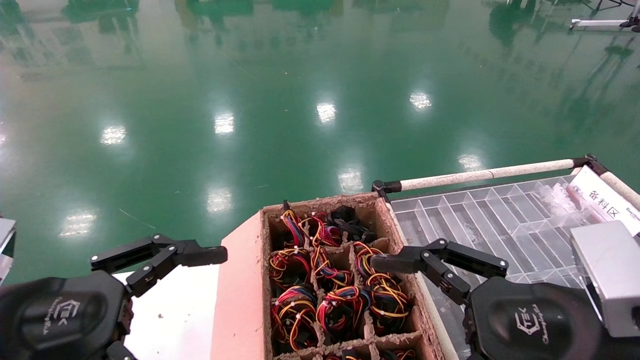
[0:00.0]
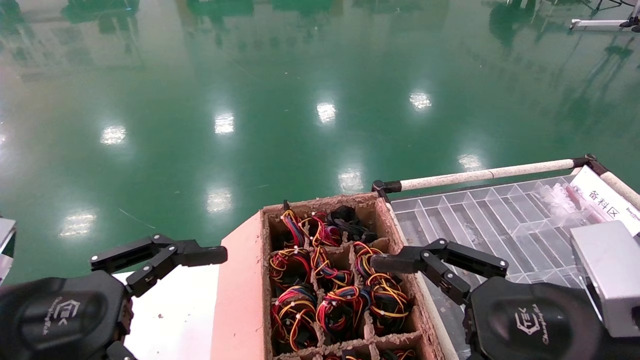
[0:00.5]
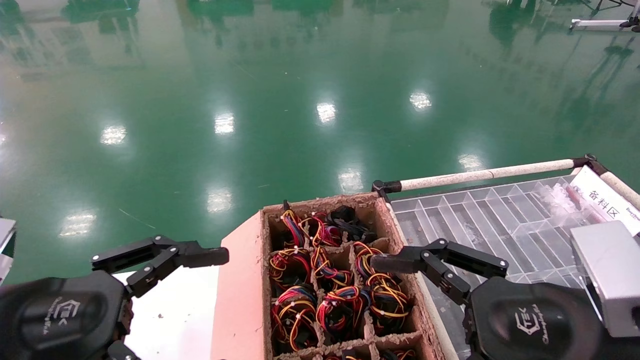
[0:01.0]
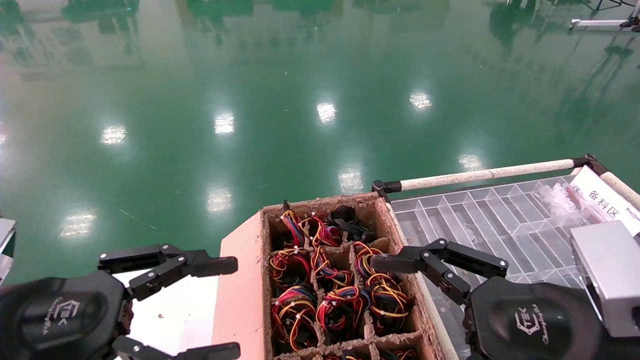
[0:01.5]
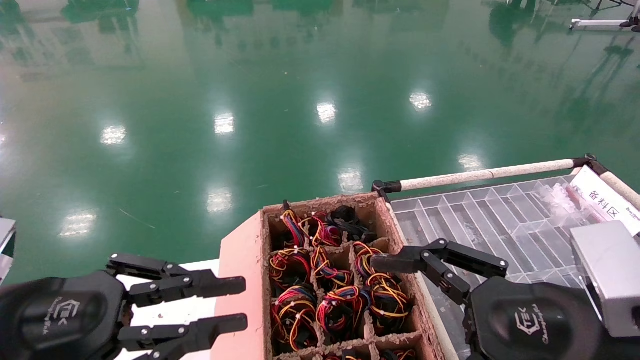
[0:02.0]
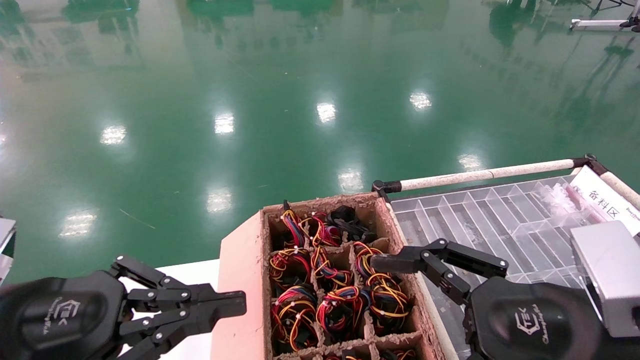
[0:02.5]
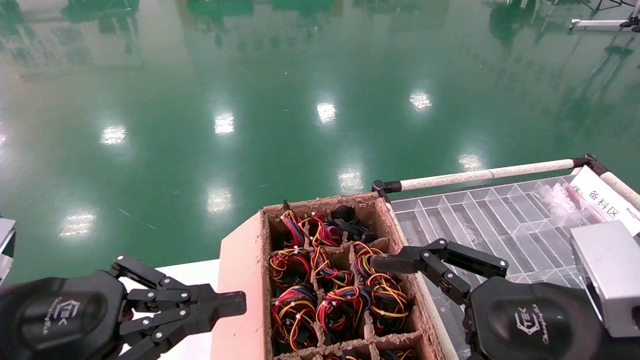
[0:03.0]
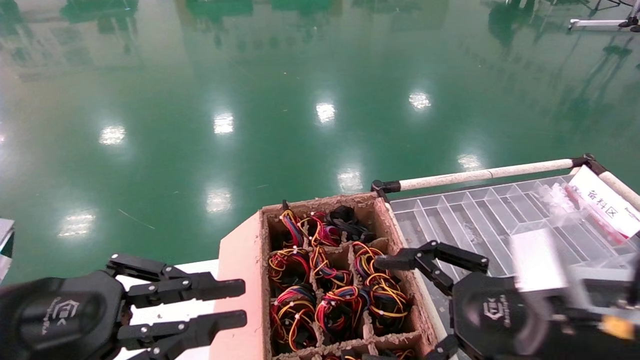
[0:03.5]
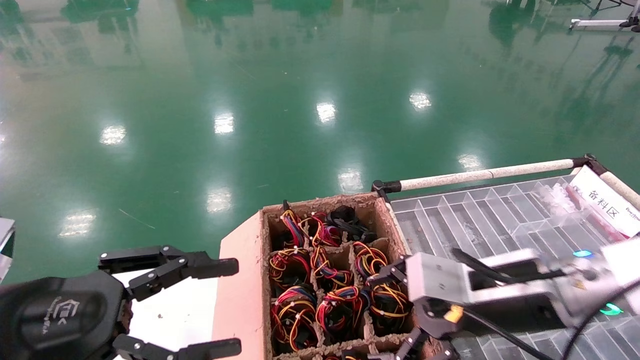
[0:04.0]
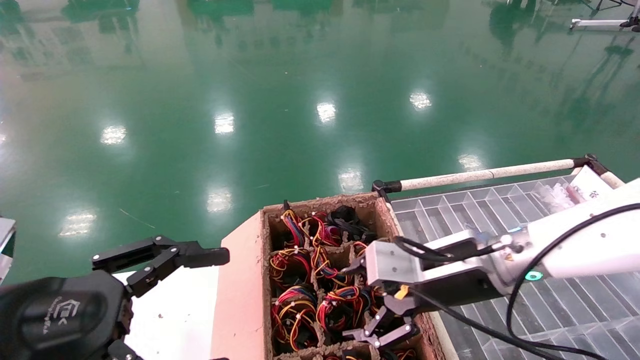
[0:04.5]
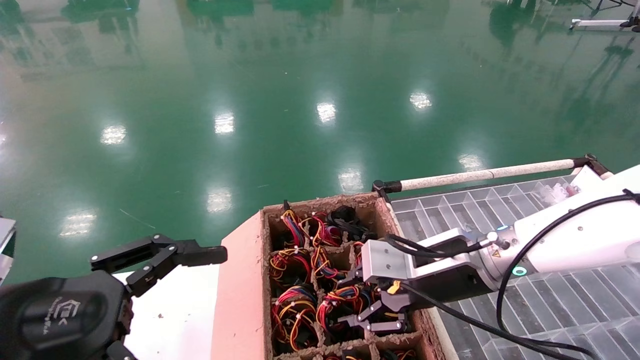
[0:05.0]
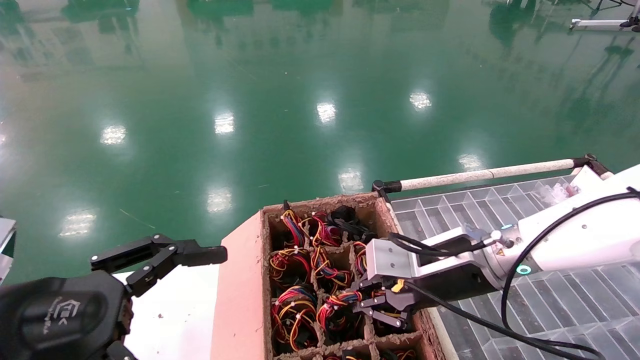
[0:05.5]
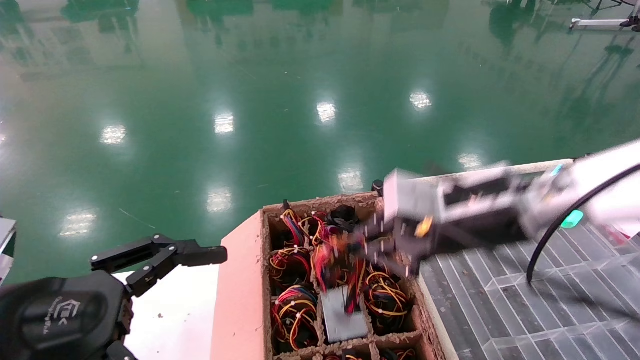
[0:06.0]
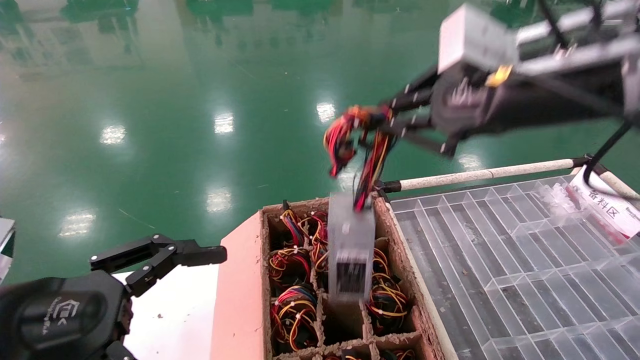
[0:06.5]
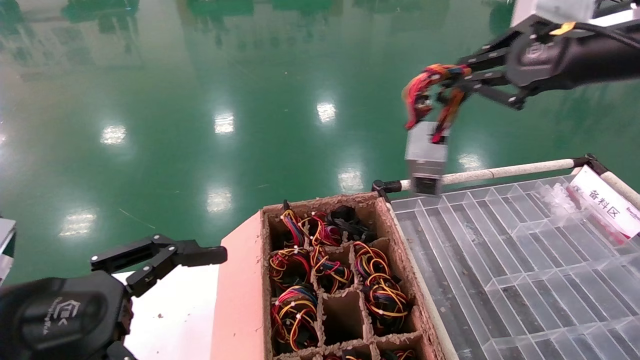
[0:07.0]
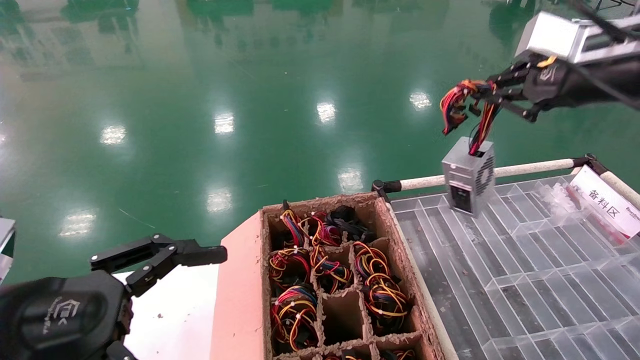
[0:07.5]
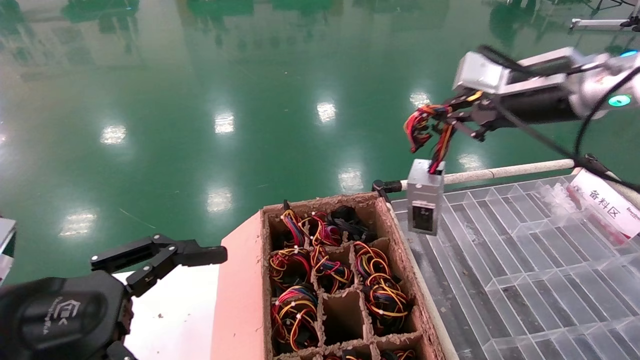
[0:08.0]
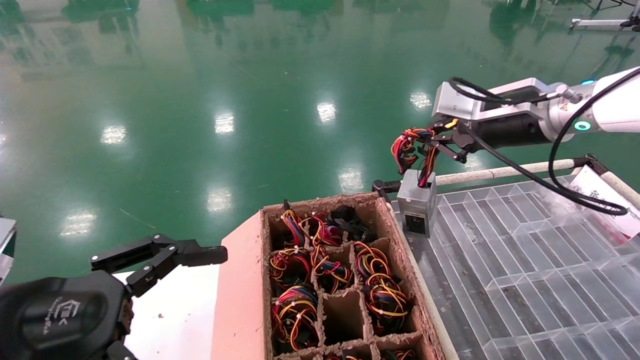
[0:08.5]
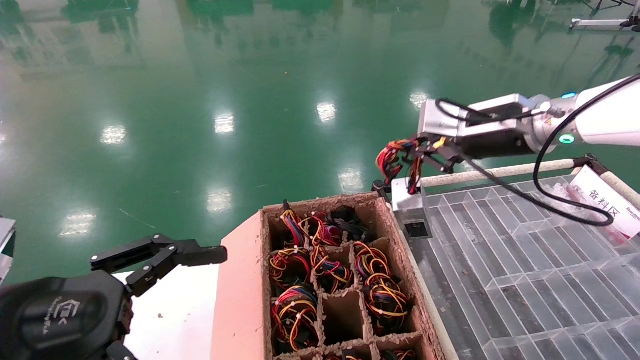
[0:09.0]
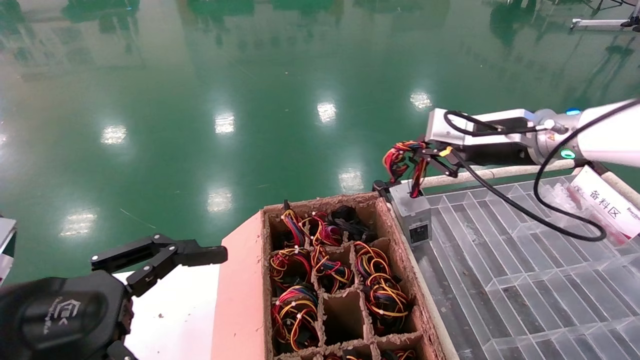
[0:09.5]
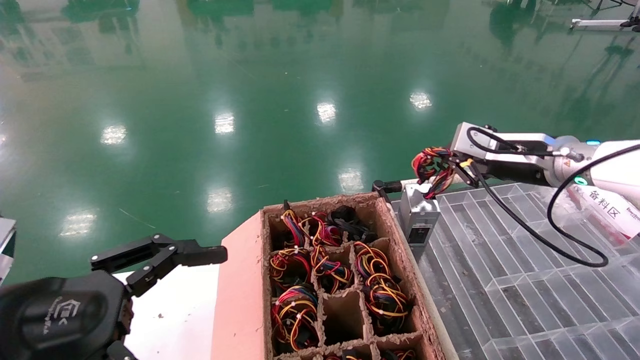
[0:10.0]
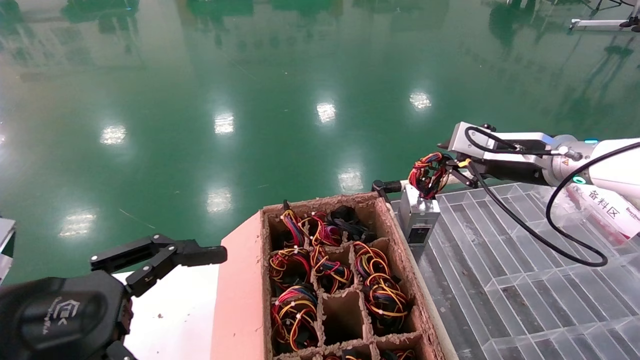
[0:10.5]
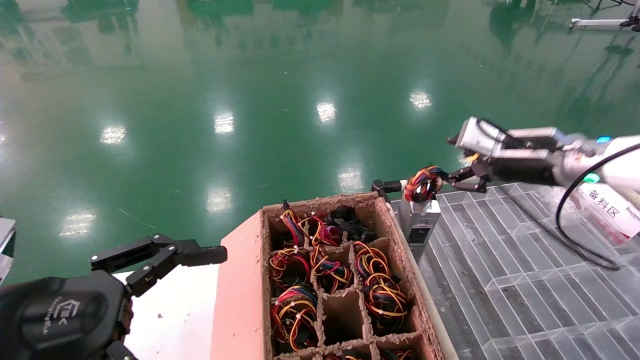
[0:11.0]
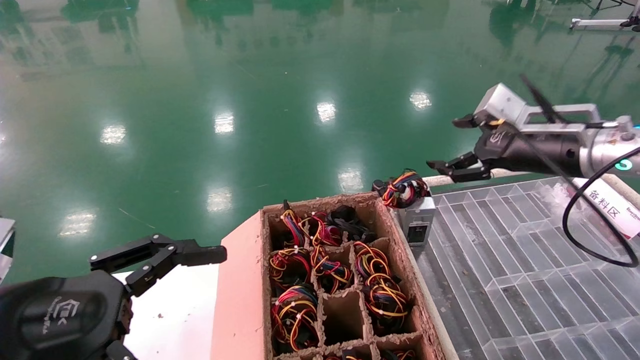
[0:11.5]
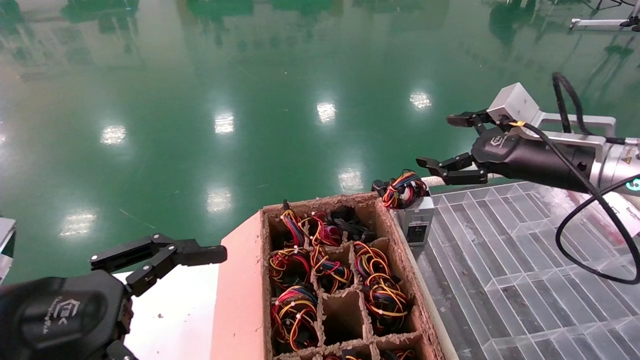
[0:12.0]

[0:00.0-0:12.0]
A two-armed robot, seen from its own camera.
Step, 0:02.5 to 0:05.5: Grab and lift the power supply from the large box.
Step, 0:06.0 to 0:10.5: Place the power supply on the operating table.
0:00.0 to 0:02.0: The left gripper closes.
0:02.0 to 0:04.0: The right gripper is displaced forward by approximately 10 cm.
0:04.0 to 0:06.0: The right gripper goes roughly 10 cm upward, and closes up. The left gripper opens up.
0:06.0 to 0:08.0: The right gripper shifts roughly 15 cm upward, to the right and forward.
0:08.0 to 0:10.0: The right gripper shifts approximately 10 cm downward and forward.
0:10.0 to 0:12.0: The right gripper heads backward, covering approximately 5 cm, and opens up.

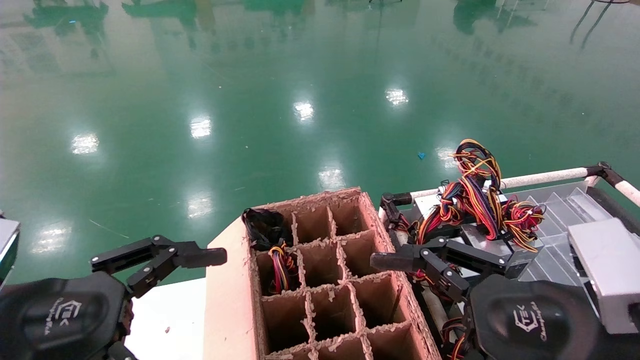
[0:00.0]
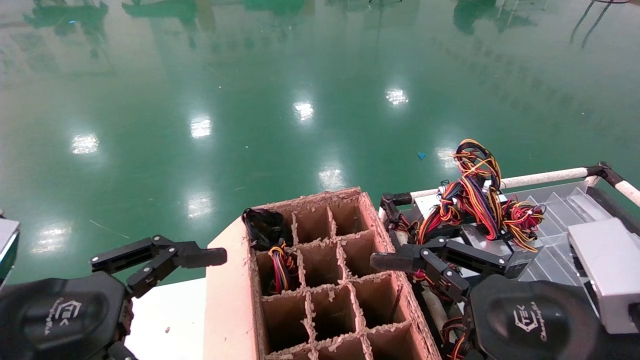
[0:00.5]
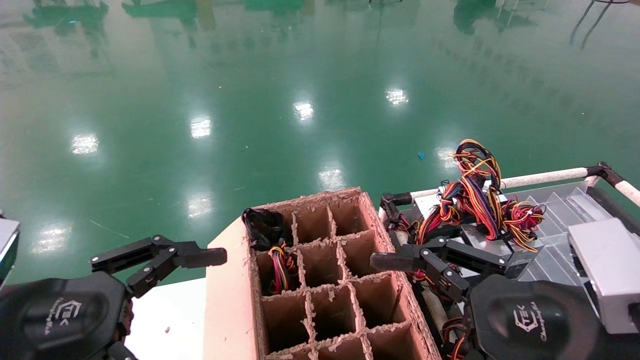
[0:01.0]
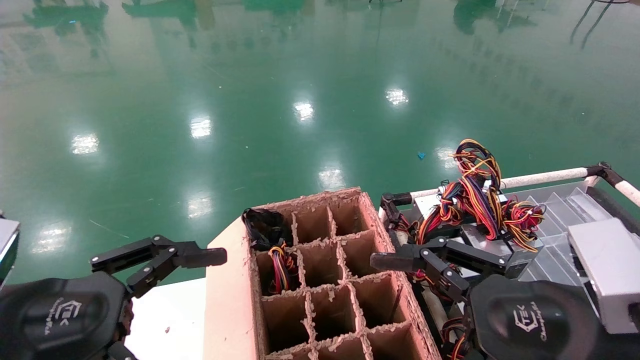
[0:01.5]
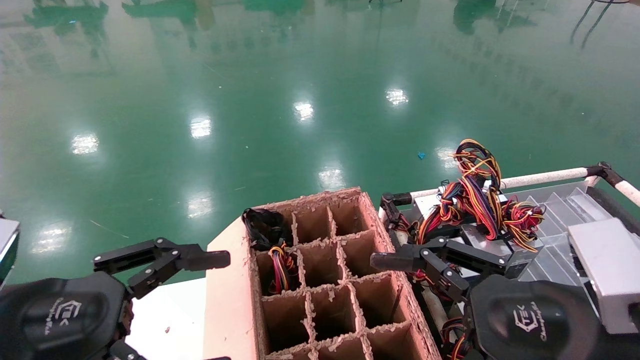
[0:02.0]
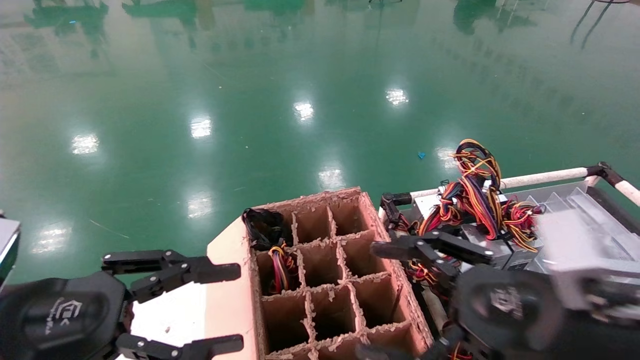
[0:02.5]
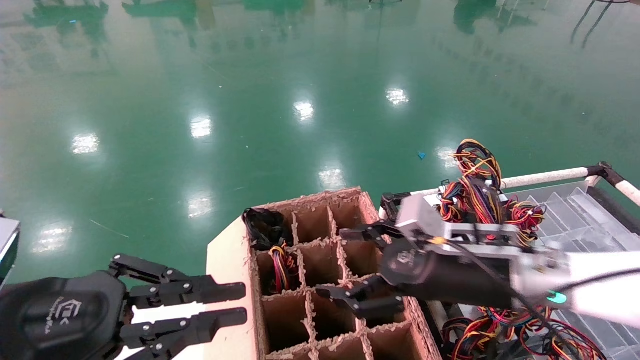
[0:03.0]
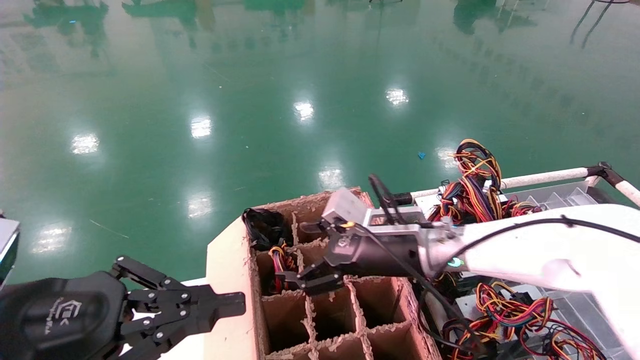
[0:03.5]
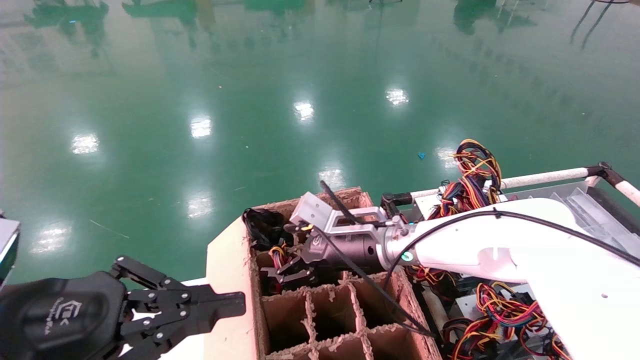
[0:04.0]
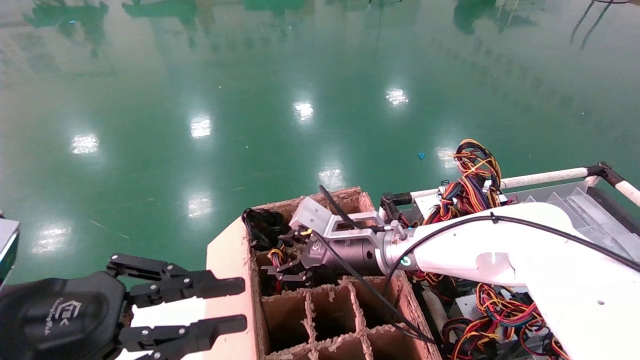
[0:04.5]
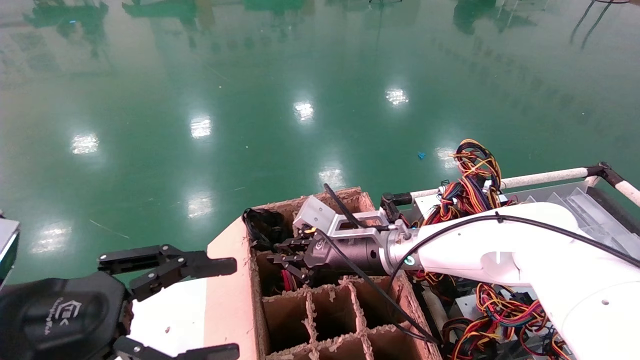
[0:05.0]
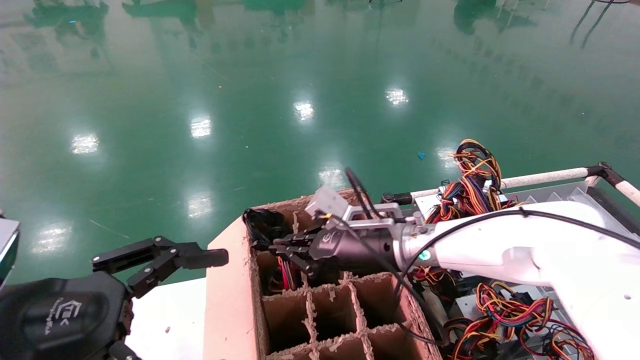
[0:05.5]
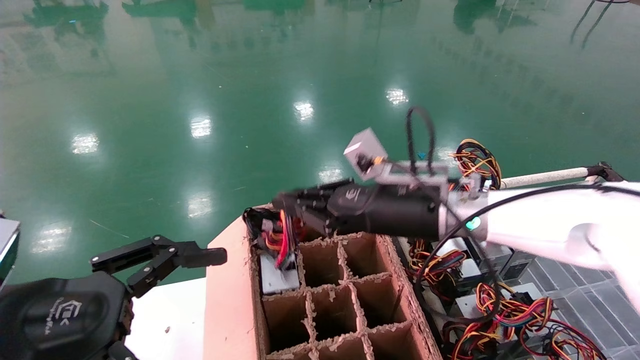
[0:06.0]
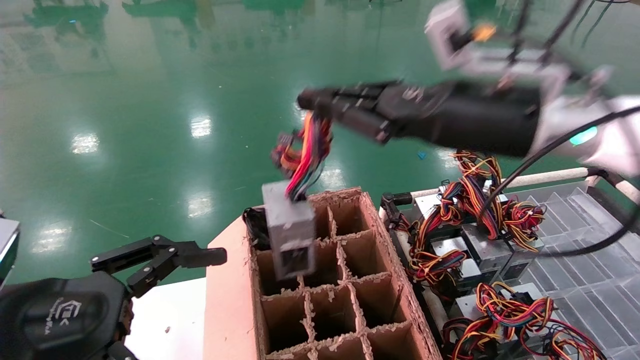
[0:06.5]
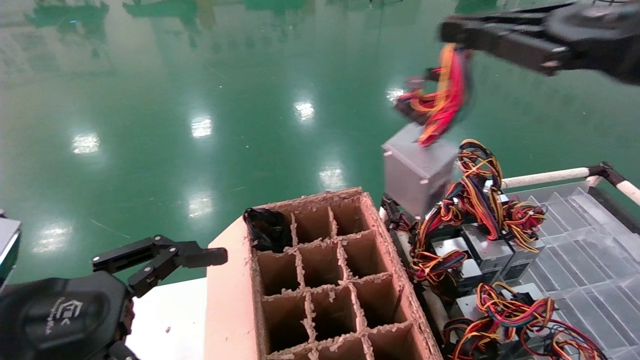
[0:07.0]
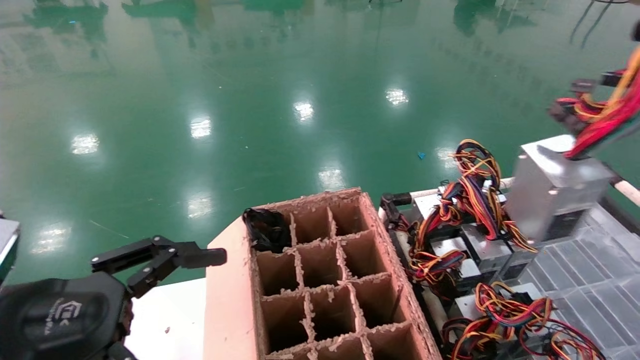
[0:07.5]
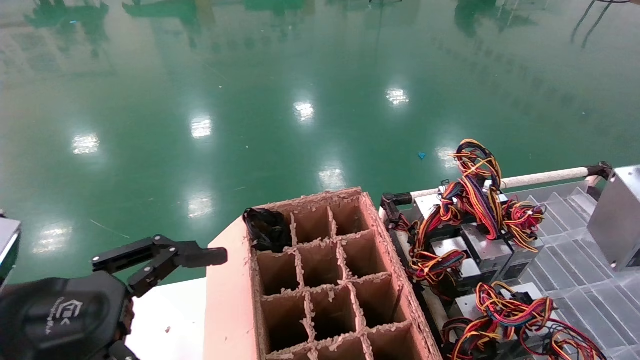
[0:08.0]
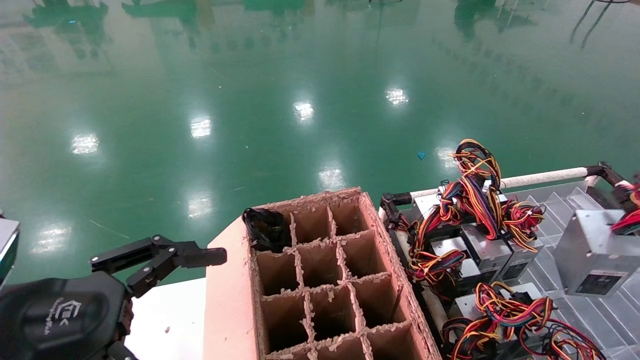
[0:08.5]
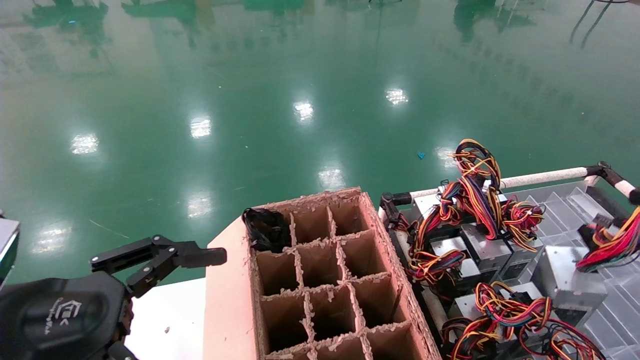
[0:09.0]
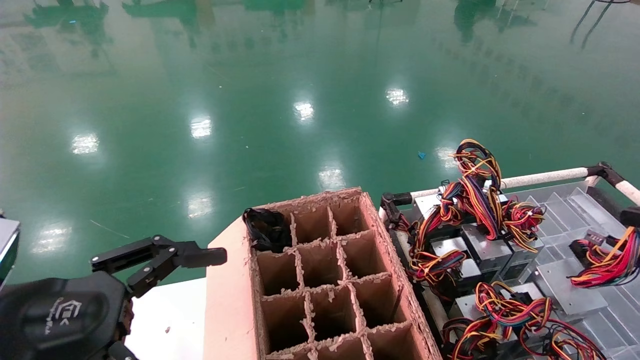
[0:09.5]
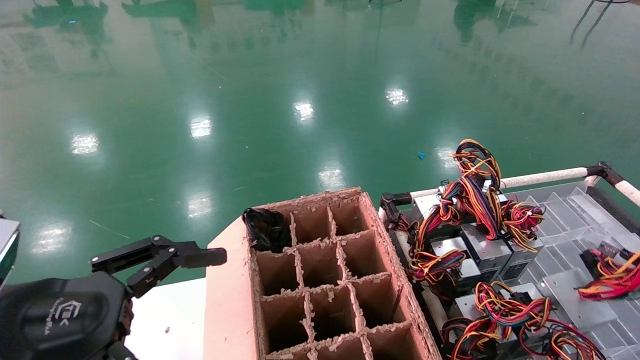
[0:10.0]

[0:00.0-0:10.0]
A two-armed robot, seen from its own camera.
Step, 0:02.5 to 0:05.0: Grab and lift the power supply from the large box.
0:00.0 to 0:02.0: Neither gripper changes place.
0:02.0 to 0:04.0: The right gripper moves forward and to the left, roughly 30 cm, while the left gripper closes its fingers.
0:04.0 to 0:06.0: The right gripper travels upward and to the right by some 10 cm, and closes its fingers; the left gripper opens its fingers.
0:06.0 to 0:08.0: The right gripper goes some 50 cm to the right and backward.
0:08.0 to 0:10.0: The right gripper moves downward, roughly 15 cm.
